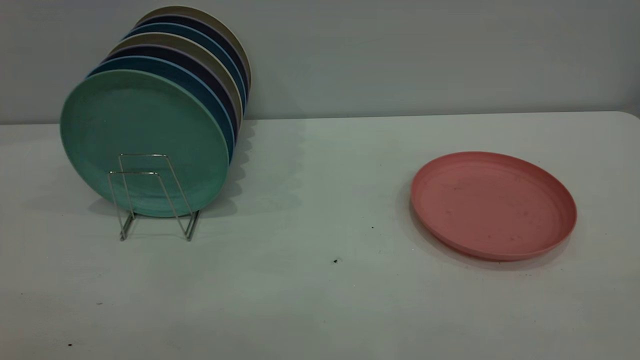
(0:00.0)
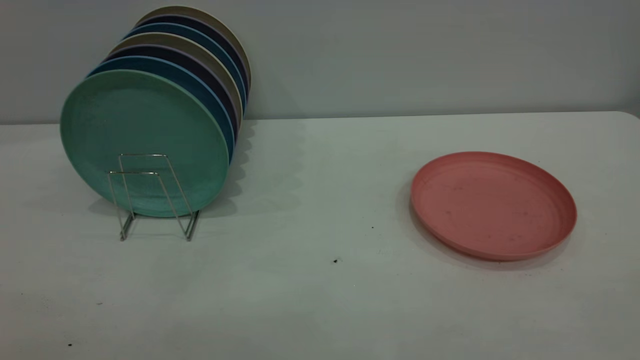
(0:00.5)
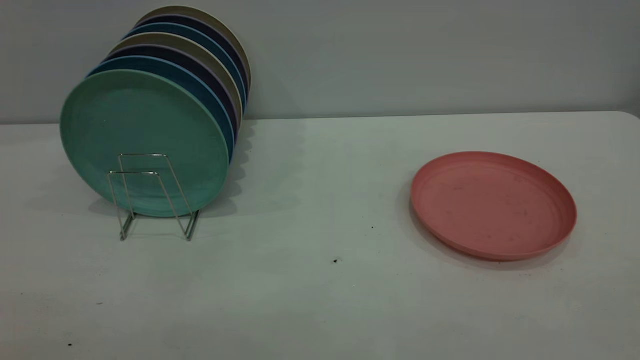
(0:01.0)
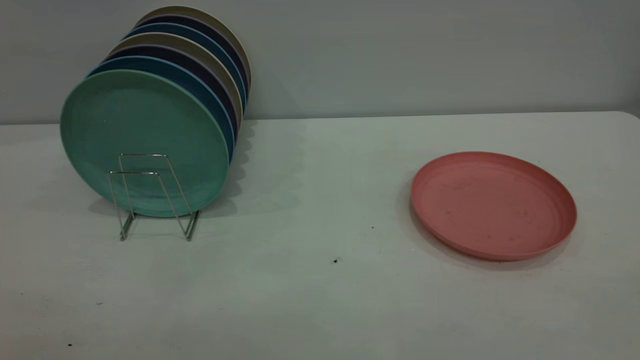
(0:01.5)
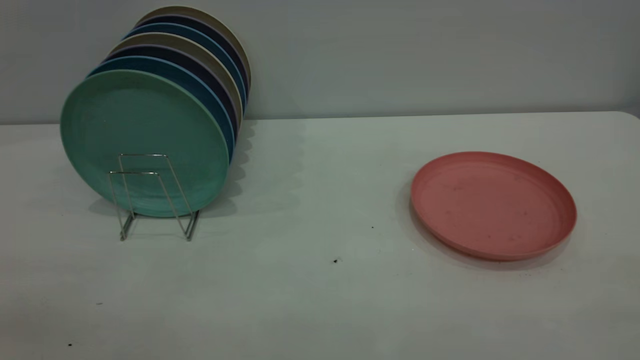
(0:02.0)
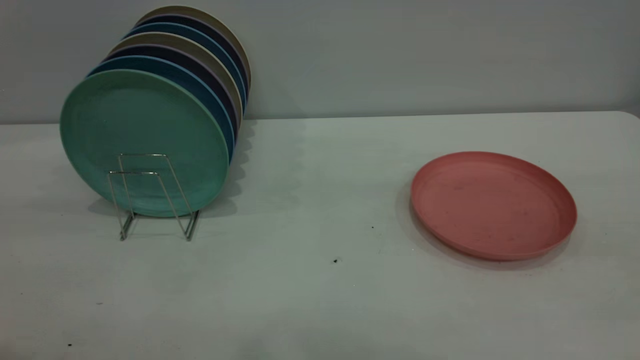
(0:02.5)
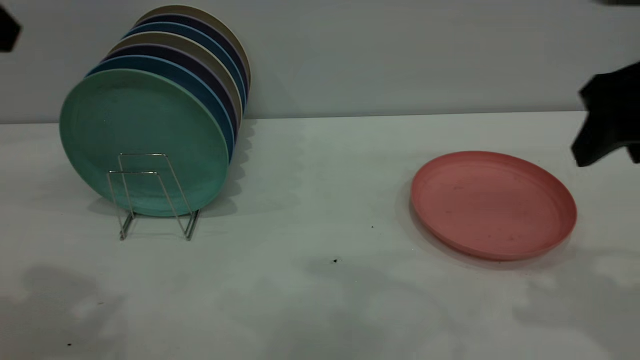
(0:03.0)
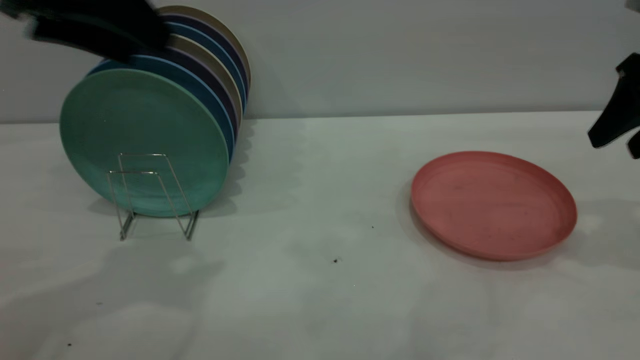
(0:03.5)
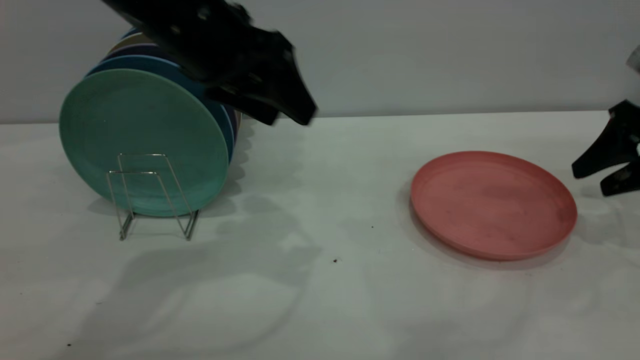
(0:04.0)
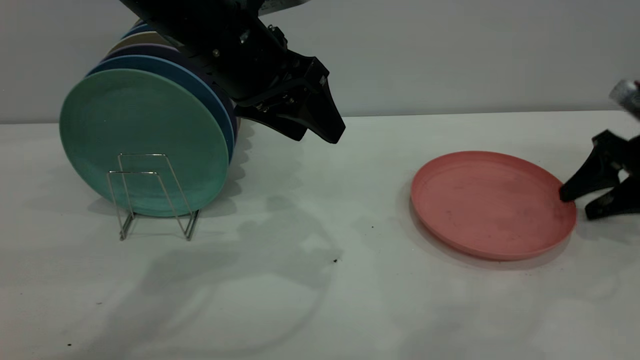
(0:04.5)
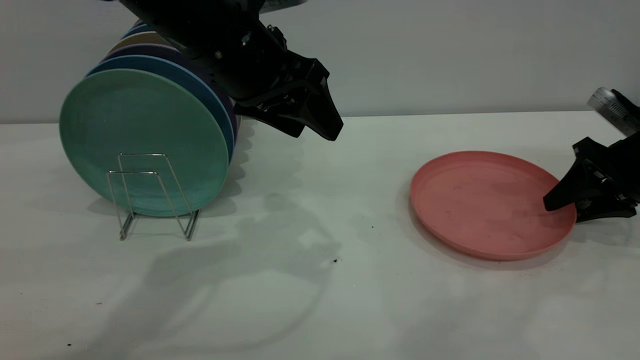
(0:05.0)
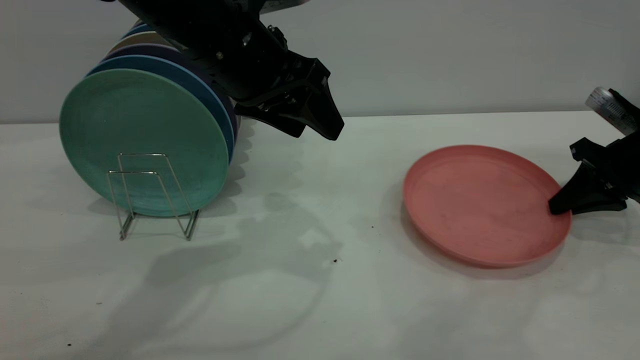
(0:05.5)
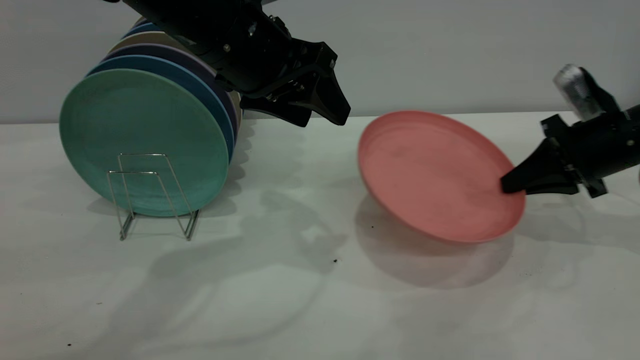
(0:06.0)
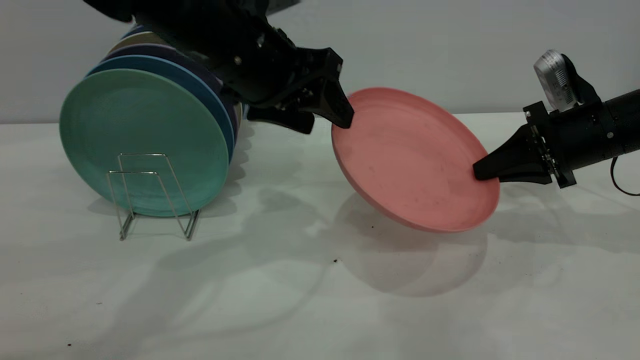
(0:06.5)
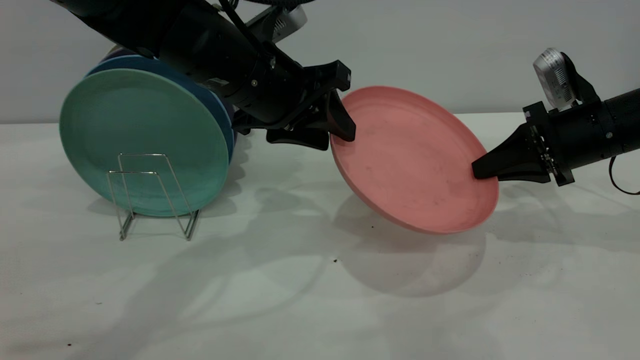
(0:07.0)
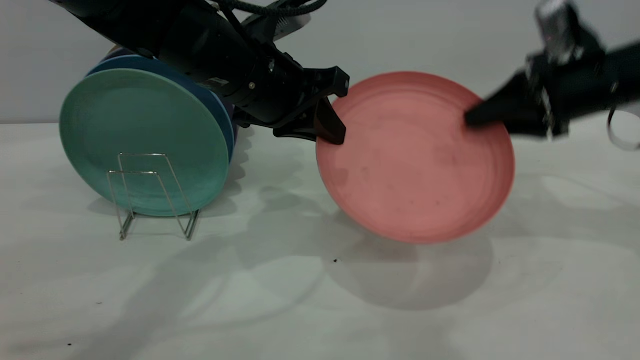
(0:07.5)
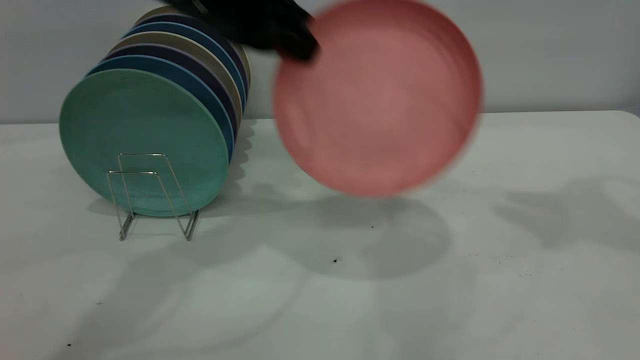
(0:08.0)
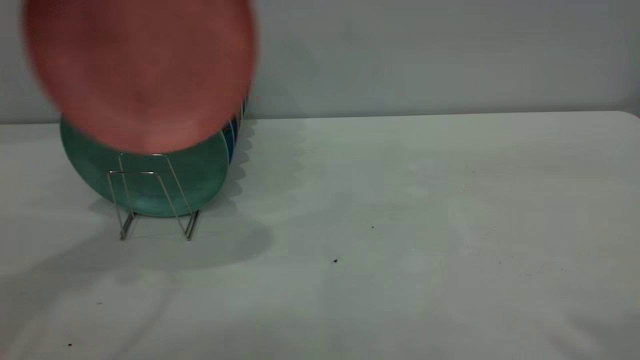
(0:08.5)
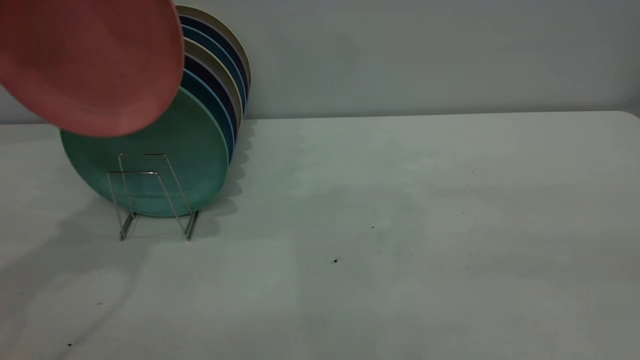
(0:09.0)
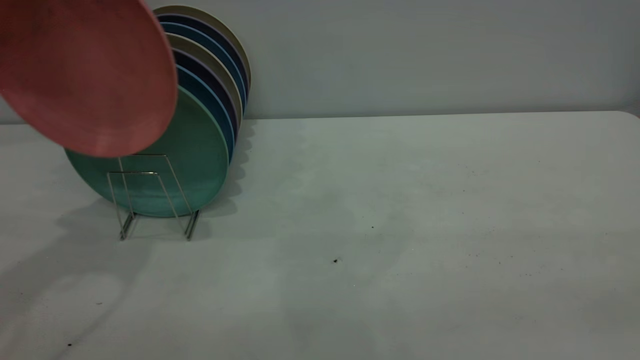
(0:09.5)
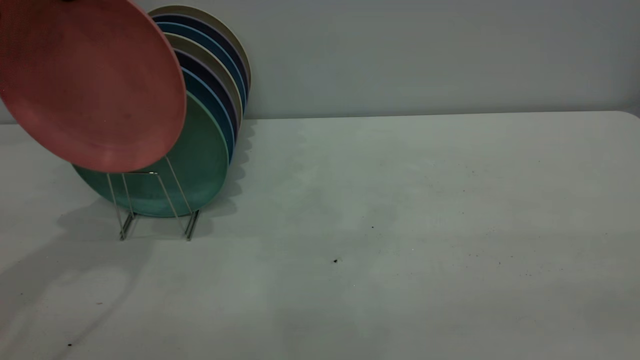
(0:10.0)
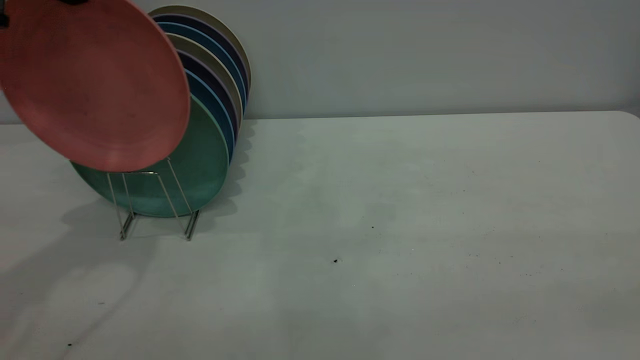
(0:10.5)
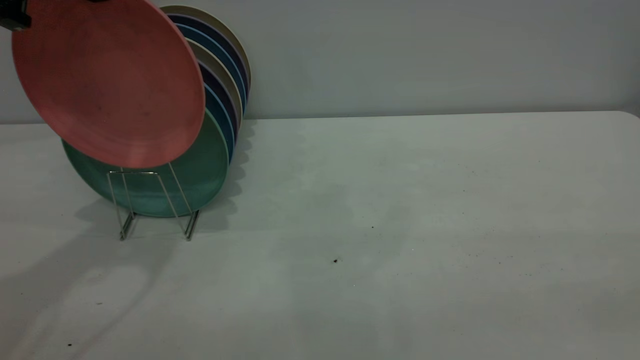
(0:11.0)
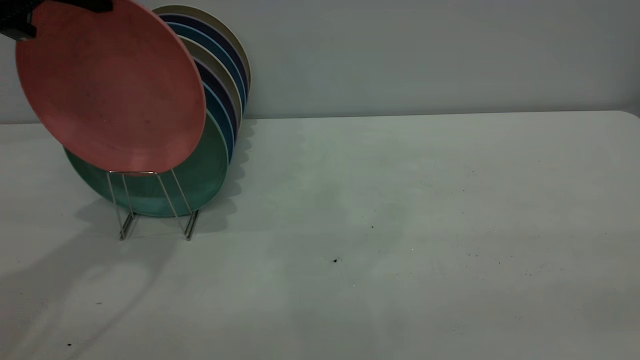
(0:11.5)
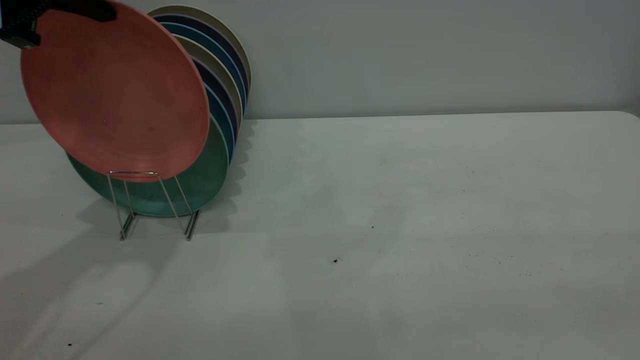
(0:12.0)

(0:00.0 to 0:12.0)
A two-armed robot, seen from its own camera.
Task of the whole recording: the right gripper grasp the pink plate, the right gripper pass the pink plate to the left gripper, and the left gripper place the pink plate on the plate rack.
Step, 0:00.0 - 0:05.5: Pick up the plate with the right gripper.
Step, 0:06.0 - 0:07.5: Pass the plate from the right gripper to the left gripper.
0:02.0 - 0:04.0: The right gripper shifts roughly 40 cm forward and downward, and opens its fingers; the left gripper travels forward and to the right by approximately 40 cm.
0:04.0 - 0:06.0: The right gripper moves to the left, some 5 cm, and closes.
0:06.0 - 0:08.0: The left gripper heads upward, covering roughly 5 cm, and closes its fingers. Meanwhile the right gripper travels upward by roughly 30 cm, and opens up.
0:08.0 - 0:10.0: The right gripper shifts approximately 35 cm backward; the left gripper goes roughly 15 cm to the left.
0:10.0 - 0:12.0: The grippers move only a little.

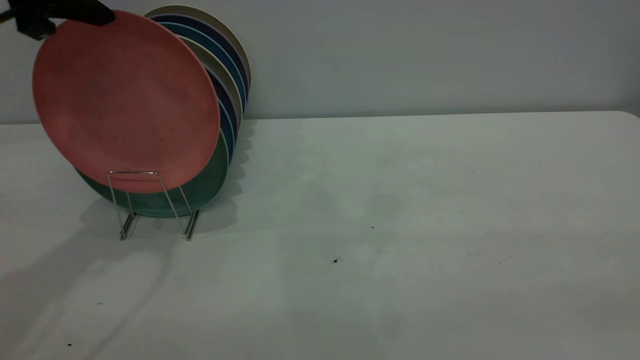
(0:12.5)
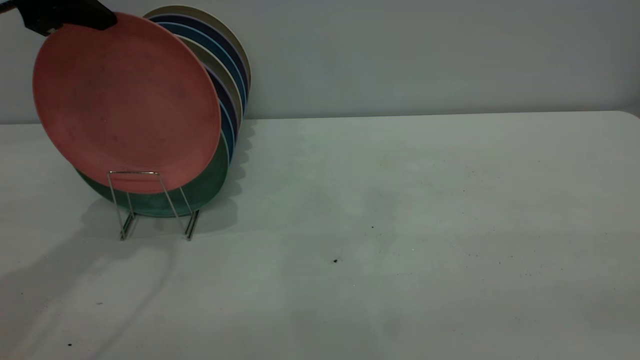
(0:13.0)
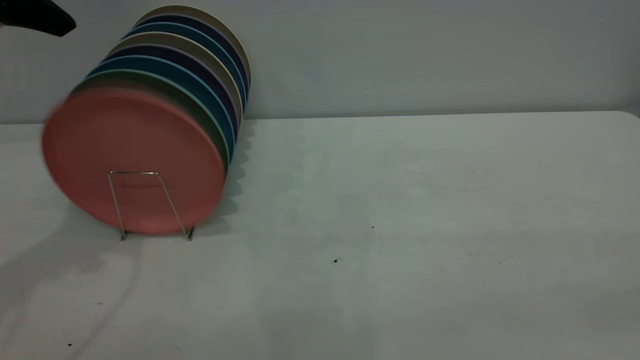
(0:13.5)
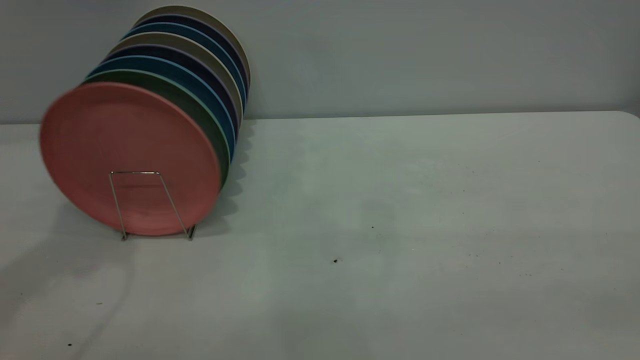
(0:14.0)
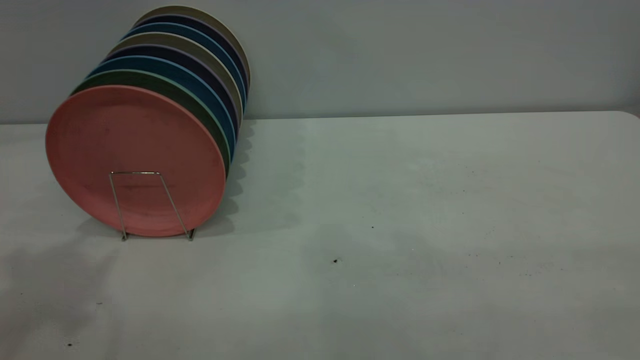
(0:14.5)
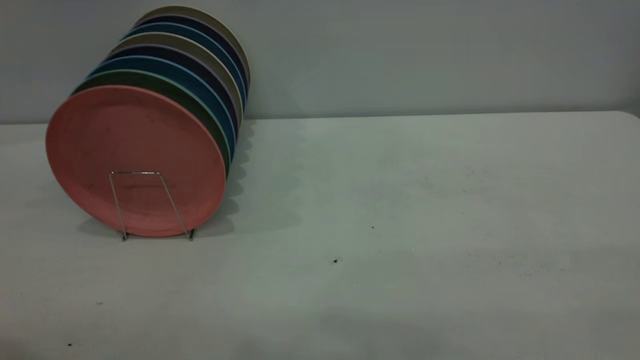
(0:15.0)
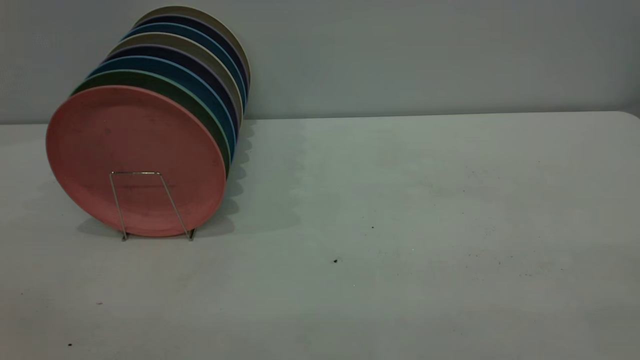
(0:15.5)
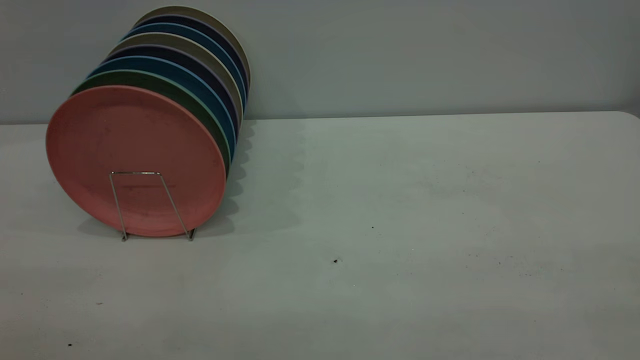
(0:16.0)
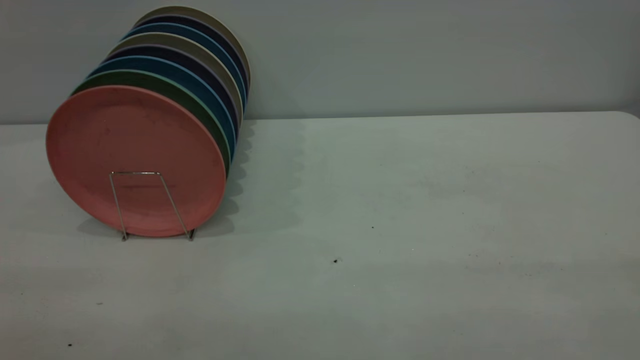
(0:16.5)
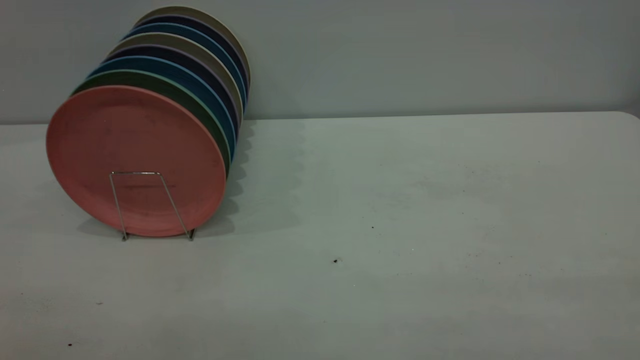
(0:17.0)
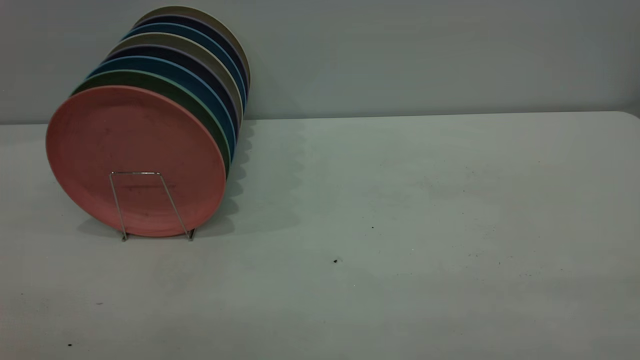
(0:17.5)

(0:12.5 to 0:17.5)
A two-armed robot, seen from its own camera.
Task of the whole recording: the right gripper grasp the pink plate, the right gripper pass the pink plate to the left gripper, and the left gripper place the pink plate on the plate rack.
0:12.5 - 0:15.0: The left gripper goes approximately 25 cm backward and upward.
